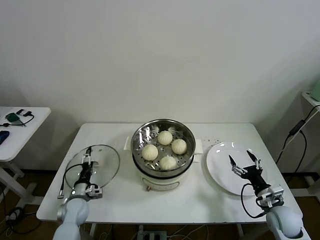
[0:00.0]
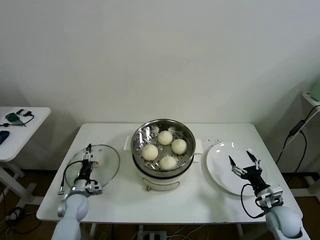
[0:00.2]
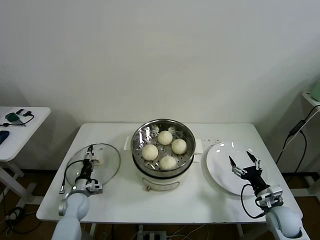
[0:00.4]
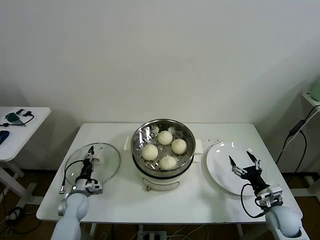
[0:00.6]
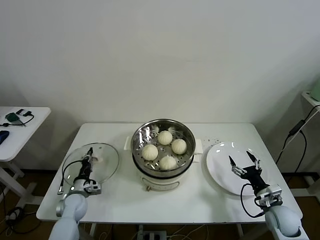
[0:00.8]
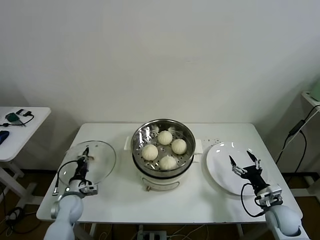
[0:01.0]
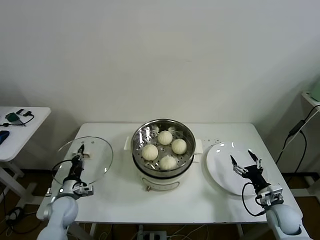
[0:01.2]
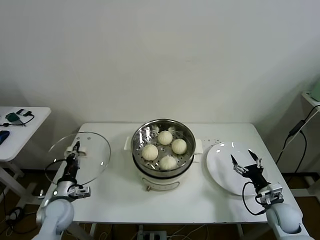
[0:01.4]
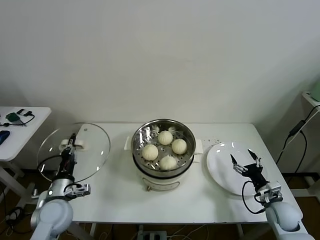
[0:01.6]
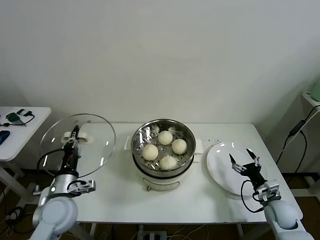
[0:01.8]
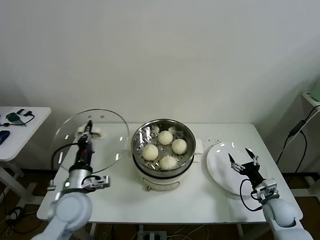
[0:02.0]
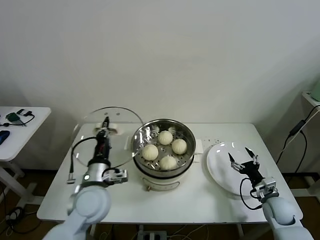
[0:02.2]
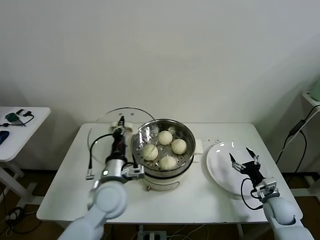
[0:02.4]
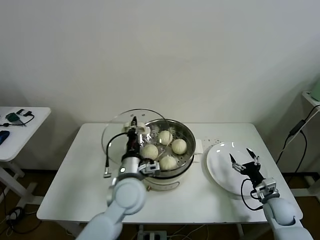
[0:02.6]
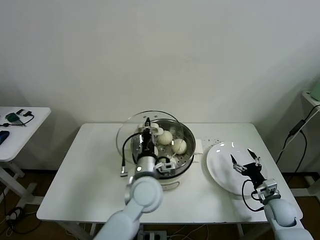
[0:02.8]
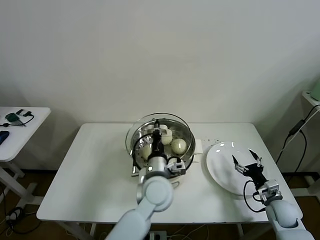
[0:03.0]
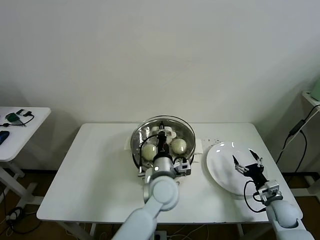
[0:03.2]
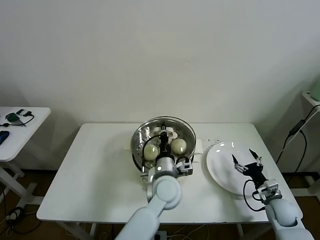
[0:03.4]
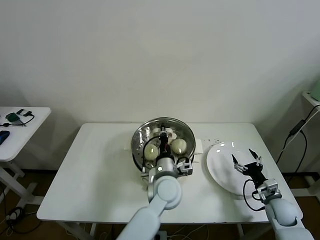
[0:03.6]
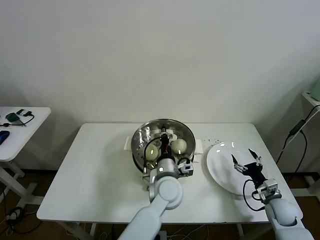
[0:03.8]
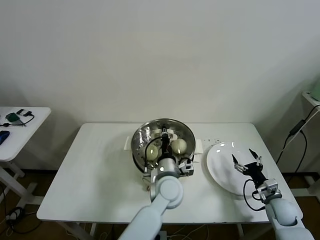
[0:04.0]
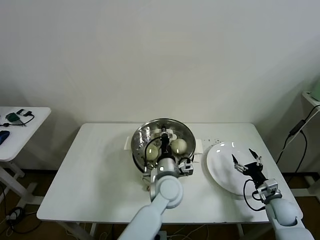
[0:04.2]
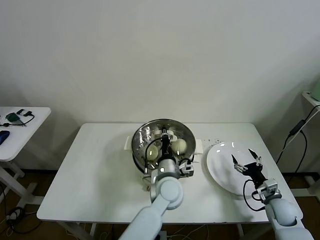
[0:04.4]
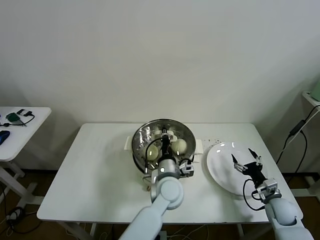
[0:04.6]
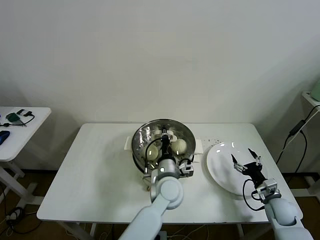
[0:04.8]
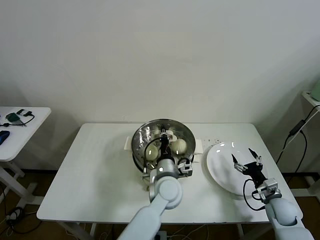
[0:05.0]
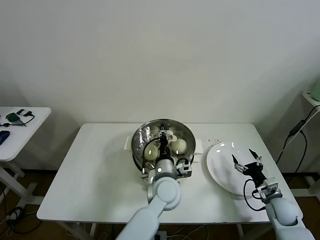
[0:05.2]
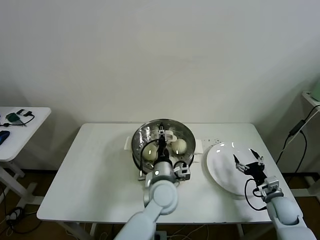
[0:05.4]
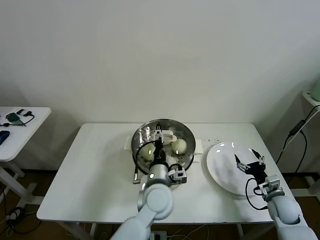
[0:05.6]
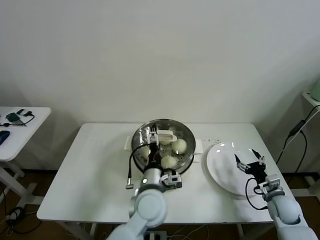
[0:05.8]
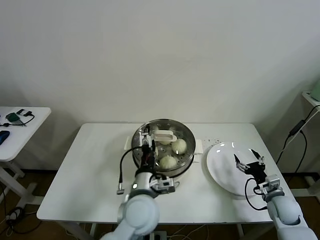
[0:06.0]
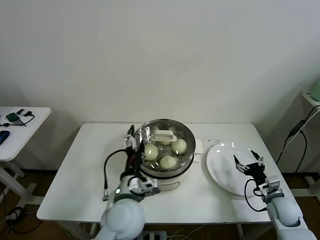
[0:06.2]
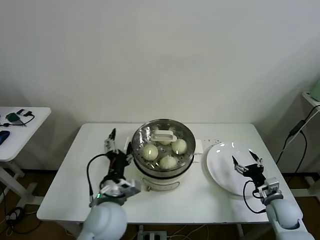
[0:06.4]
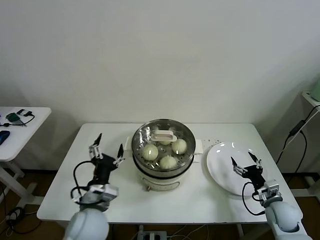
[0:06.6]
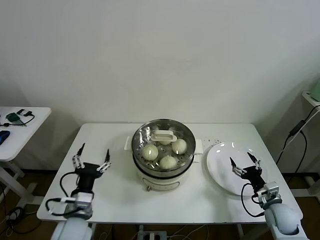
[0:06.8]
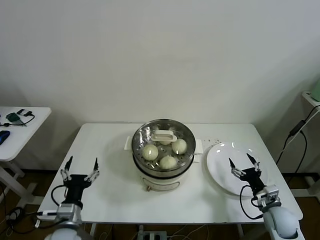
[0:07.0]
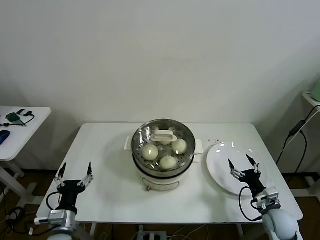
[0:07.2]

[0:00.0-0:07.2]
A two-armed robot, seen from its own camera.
Task of the whole recording: take steamed baozi put them in steamer then cover it.
Step, 0:01.2 to 0:05.6: Place the pot lid on the steamer with left gripper.
0:00.0 to 0:01.4: The left gripper goes some 10 cm upward, and closes up.
0:01.4 to 0:02.8: The left gripper is displaced to the right and upward by some 30 cm.
0:02.8 to 0:04.4: The left gripper moves to the right and downward, roughly 10 cm.
0:04.4 to 0:05.8: The left gripper ends up about 5 cm from where it was, and opens.
0:05.8 to 0:07.2: The left gripper shifts roughly 25 cm to the left; the right gripper changes place by about 5 cm.

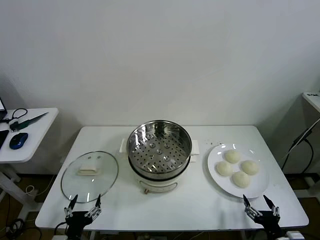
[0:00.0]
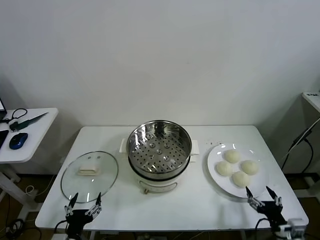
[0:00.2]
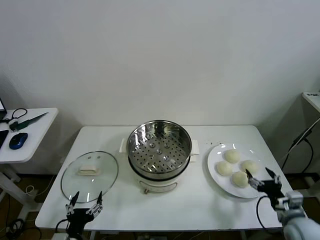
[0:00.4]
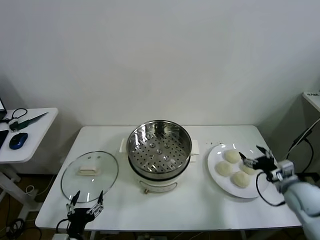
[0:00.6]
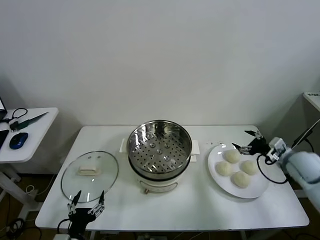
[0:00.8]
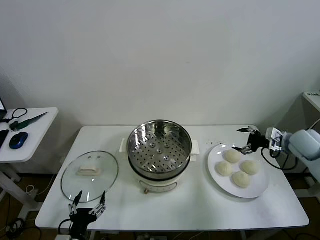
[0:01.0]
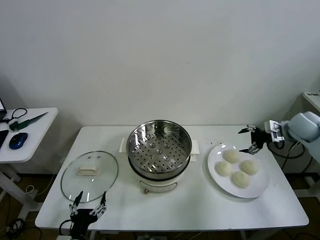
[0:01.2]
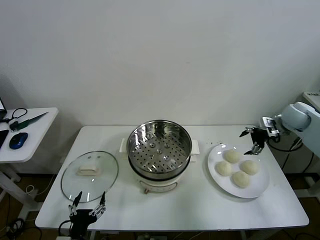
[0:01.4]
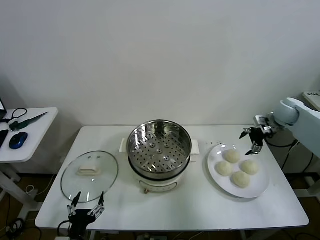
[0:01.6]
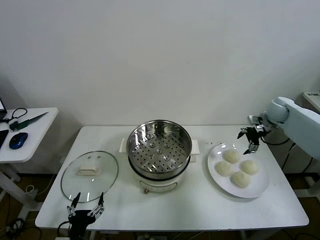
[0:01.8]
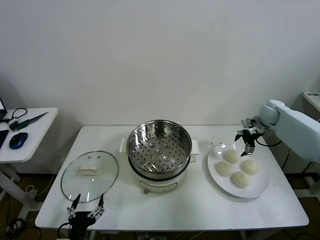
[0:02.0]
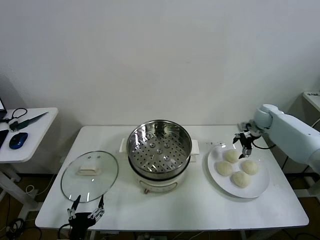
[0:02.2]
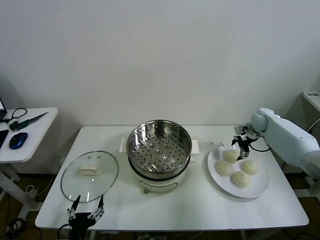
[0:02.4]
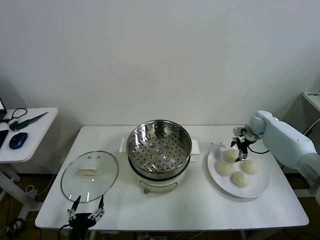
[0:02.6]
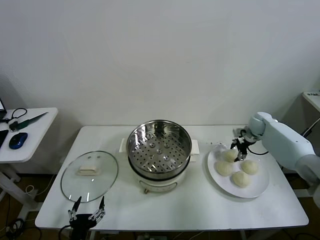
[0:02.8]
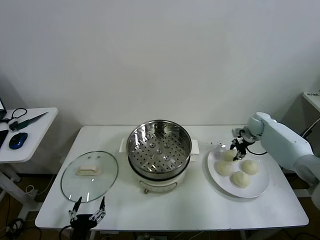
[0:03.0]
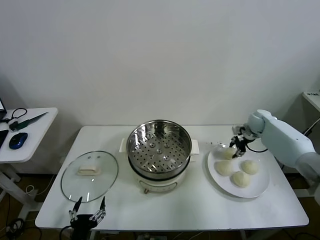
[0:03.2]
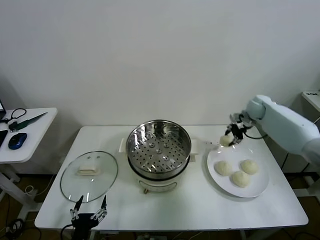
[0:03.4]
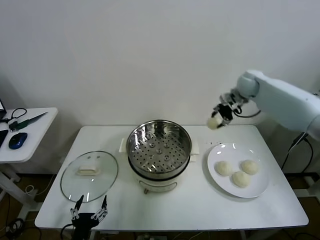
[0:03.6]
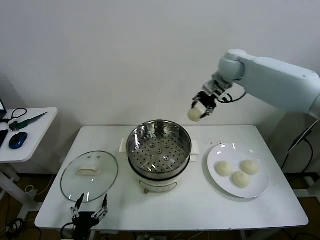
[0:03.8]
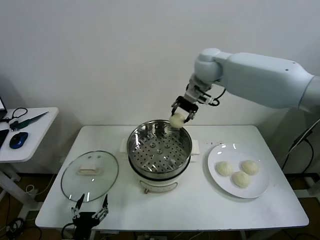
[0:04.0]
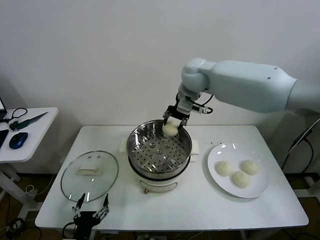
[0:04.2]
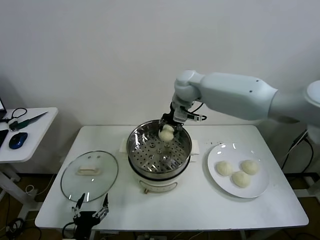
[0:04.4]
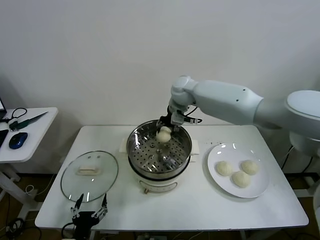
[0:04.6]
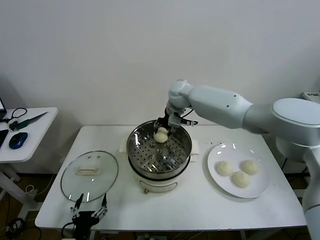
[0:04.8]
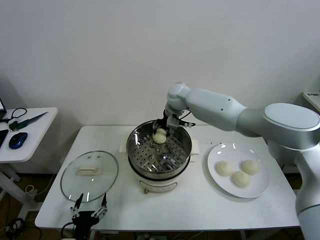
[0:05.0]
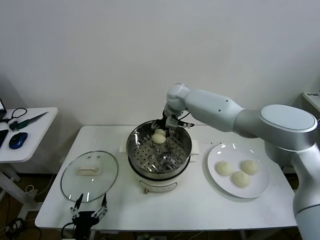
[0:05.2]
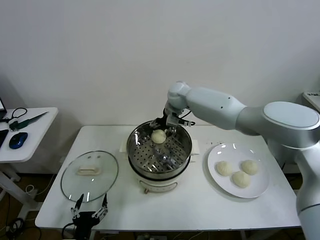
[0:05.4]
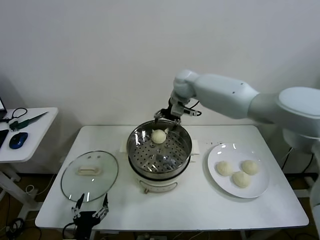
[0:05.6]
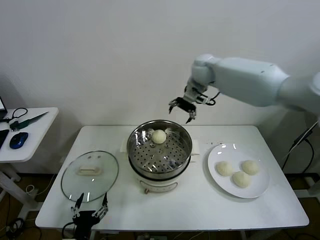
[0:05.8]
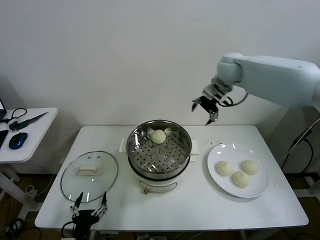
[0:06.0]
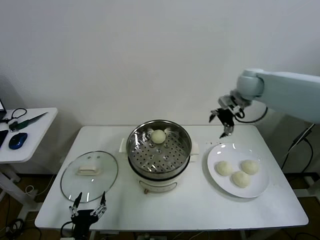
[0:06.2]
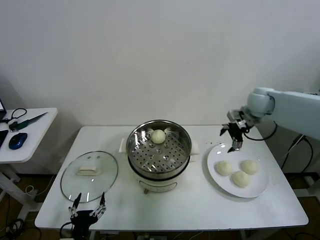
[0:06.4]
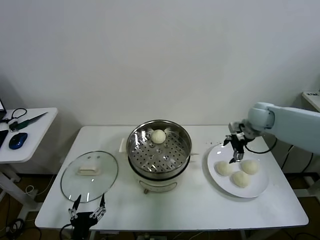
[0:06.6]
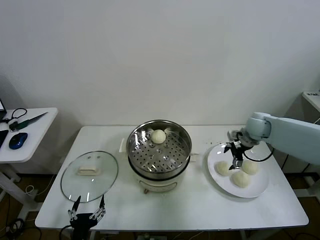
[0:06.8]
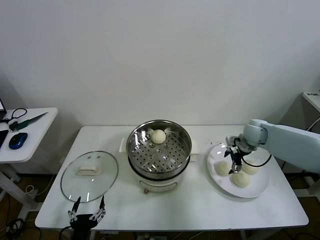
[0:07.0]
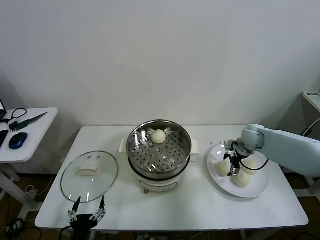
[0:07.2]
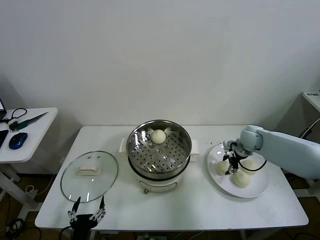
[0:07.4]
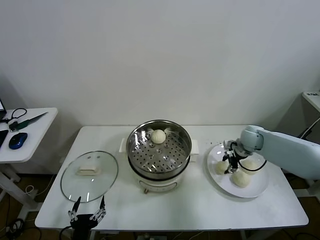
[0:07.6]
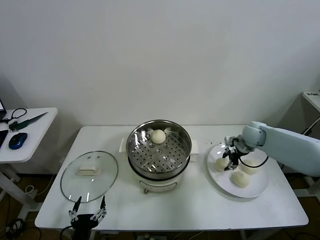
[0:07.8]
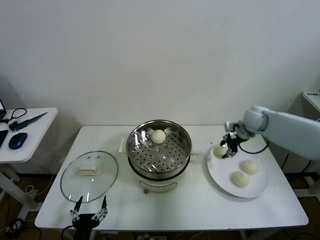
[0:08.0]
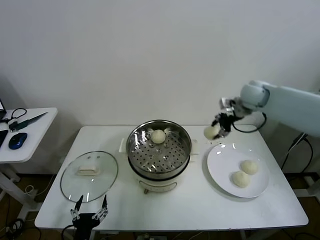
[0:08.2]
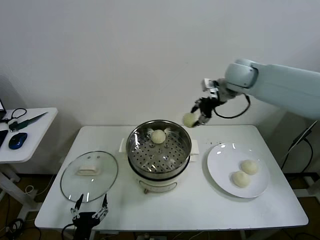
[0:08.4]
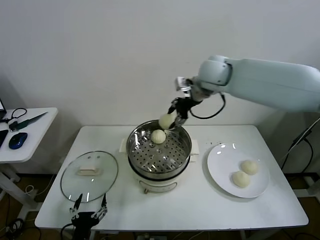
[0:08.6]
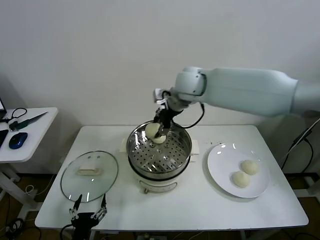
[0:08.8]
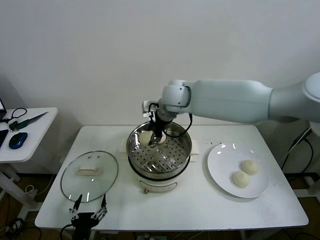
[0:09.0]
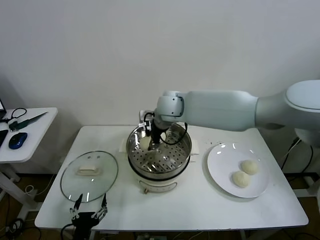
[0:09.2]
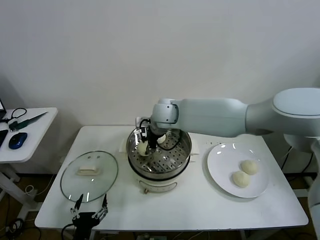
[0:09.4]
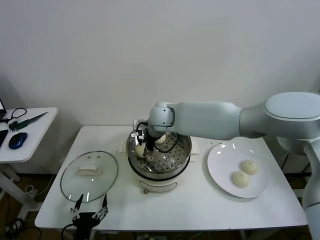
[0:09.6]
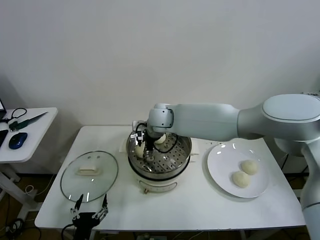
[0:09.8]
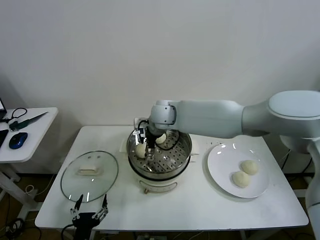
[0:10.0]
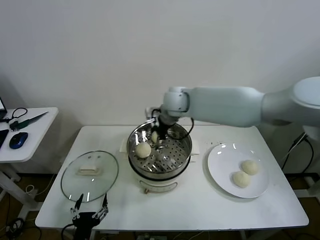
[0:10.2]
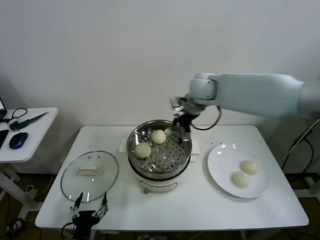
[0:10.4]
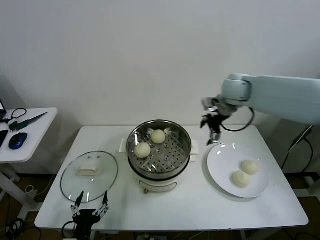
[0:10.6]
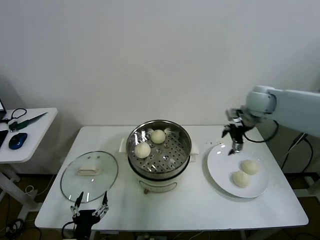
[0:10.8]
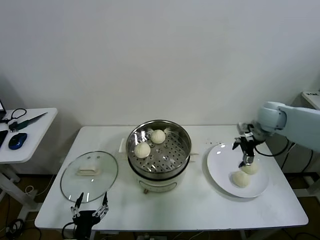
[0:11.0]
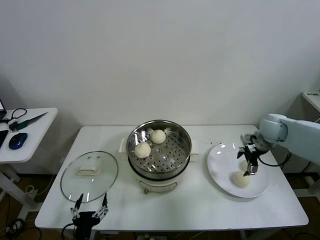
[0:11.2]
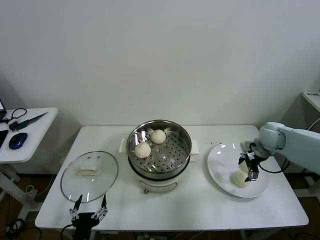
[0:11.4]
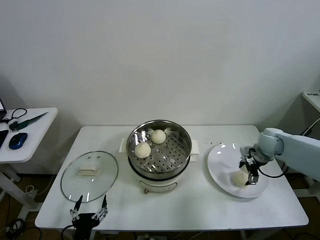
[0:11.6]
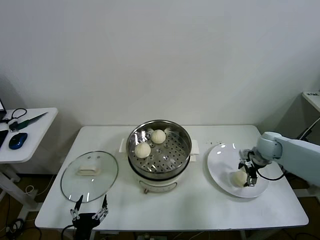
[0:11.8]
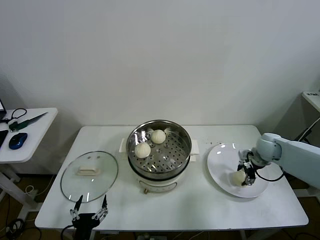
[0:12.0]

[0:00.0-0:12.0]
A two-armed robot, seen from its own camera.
Task of the whole recording: take steamed baozi put them in steamer then cover it.
Step, 0:00.0 to 0:03.0: Grasp the baozi in the plate with right gripper.
Step, 0:03.2 to 0:05.2: Place the baozi on the steamer with right gripper.
Step, 0:05.4 to 0:07.4: Grasp the baozi in the plate with right gripper.
Step, 0:07.8 to 0:10.0: Place the baozi on the steamer with right gripper.
0:01.6 to 0:03.0: The right gripper heads downward, covering about 10 cm, and closes its fingers.
0:03.0 to 0:04.4: The right gripper is displaced to the left and upward by about 40 cm.
0:04.4 to 0:06.0: The right gripper heads to the right, covering about 20 cm, and opens up.
0:06.0 to 0:07.6: The right gripper goes some 25 cm downward, and closes up.
0:07.6 to 0:09.0: The right gripper travels to the left and upward by approximately 35 cm.
0:09.0 to 0:10.4: The right gripper goes about 15 cm to the right, and opens its fingers.
0:10.4 to 0:12.0: The right gripper shifts some 30 cm to the right and downward, and closes.

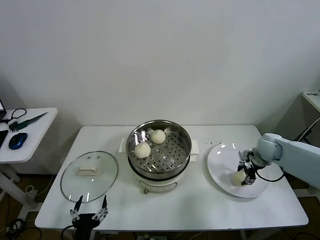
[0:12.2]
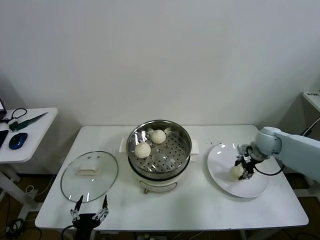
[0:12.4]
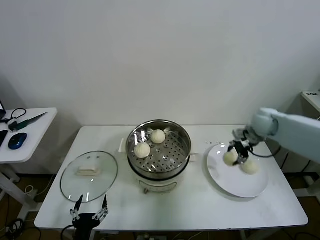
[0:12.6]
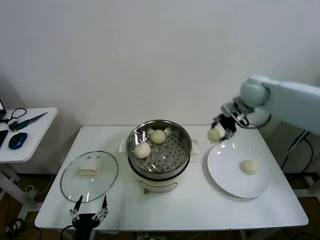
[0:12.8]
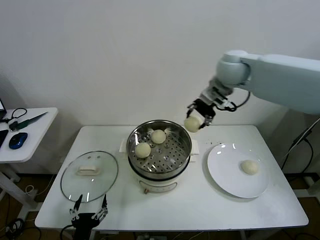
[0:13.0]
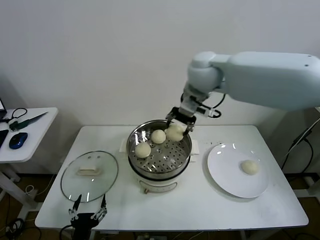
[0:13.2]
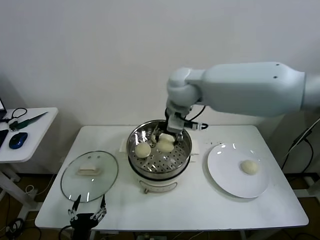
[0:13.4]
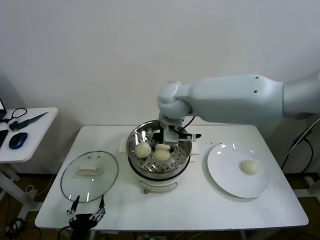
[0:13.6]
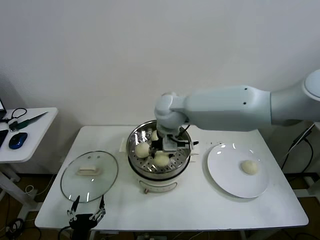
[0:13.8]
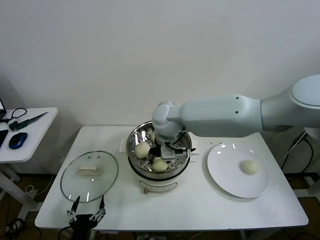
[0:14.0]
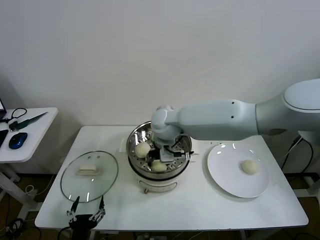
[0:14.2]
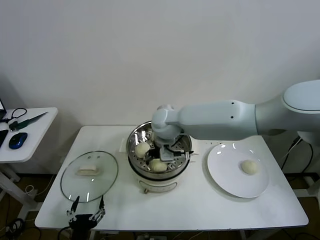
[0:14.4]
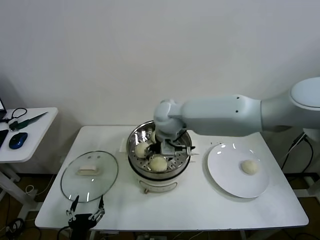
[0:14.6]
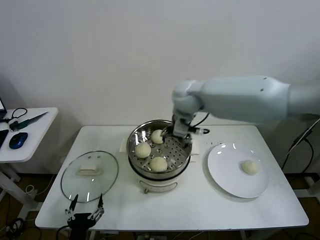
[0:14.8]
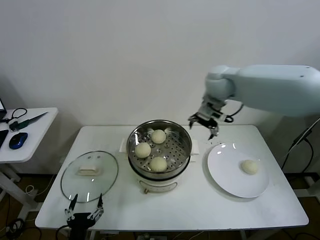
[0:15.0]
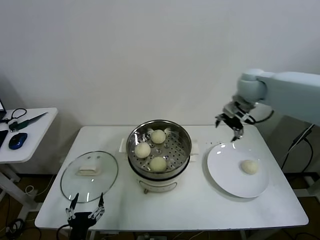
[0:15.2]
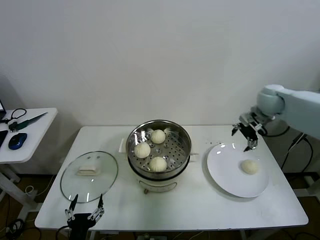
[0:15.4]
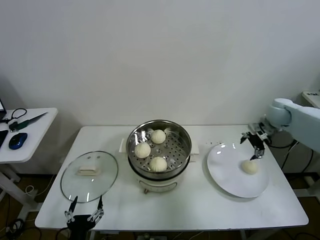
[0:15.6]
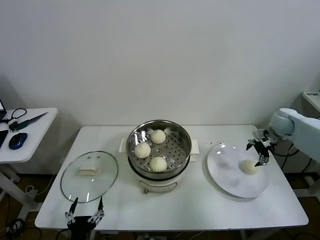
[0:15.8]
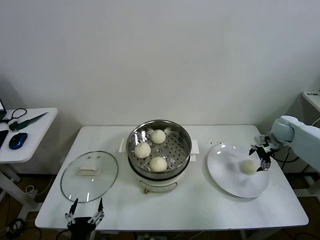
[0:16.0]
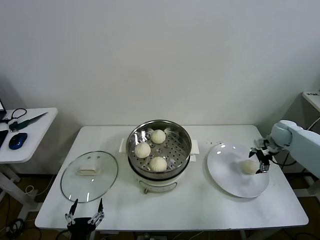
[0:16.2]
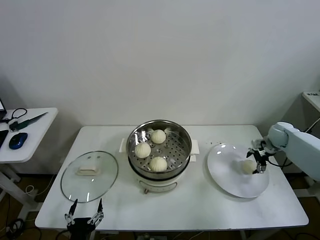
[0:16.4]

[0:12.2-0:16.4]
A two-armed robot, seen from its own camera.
Task of the whole recording: take steamed baozi put them in steamer then cover it.
Step, 0:12.4 to 0:14.4: Place the baozi on the steamer with right gripper.
0:12.2 to 0:13.6: The right gripper travels to the left and upward by roughly 40 cm.
0:13.6 to 0:15.0: The right gripper shifts about 20 cm to the right and forward, and opens.
0:15.0 to 0:16.4: The right gripper travels to the right and downward by some 35 cm.
